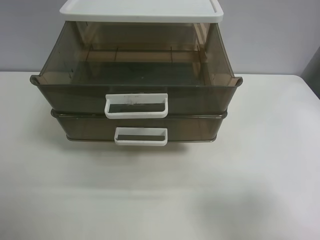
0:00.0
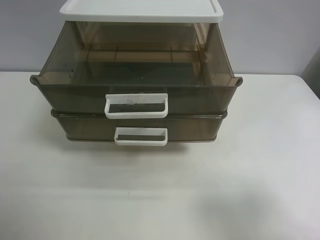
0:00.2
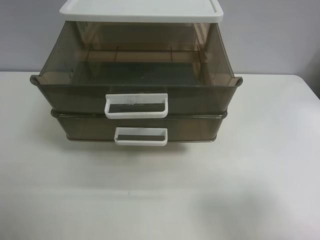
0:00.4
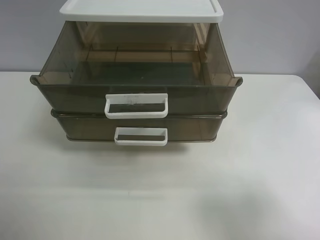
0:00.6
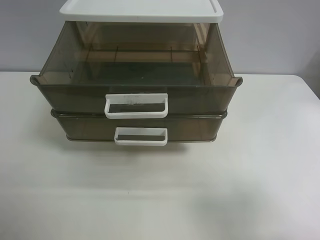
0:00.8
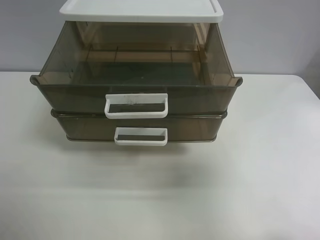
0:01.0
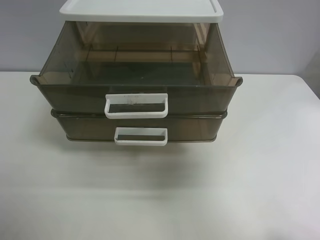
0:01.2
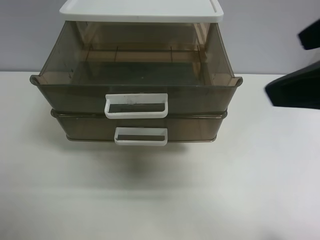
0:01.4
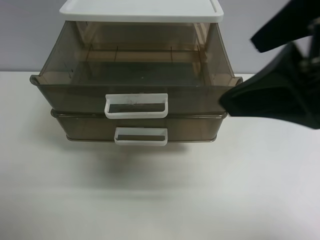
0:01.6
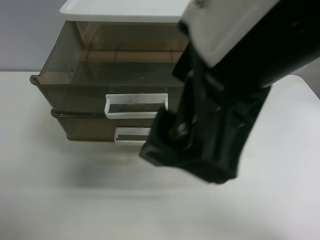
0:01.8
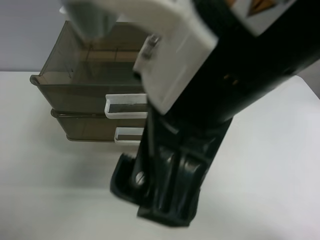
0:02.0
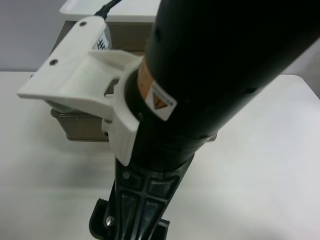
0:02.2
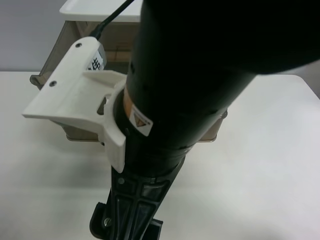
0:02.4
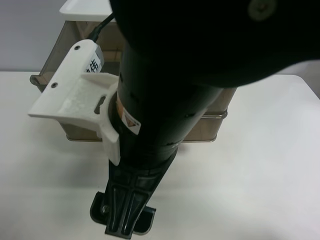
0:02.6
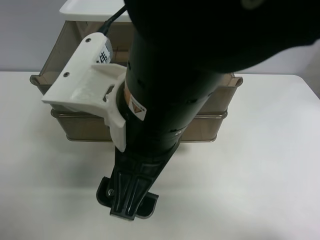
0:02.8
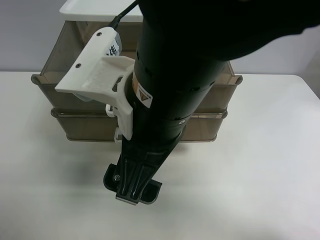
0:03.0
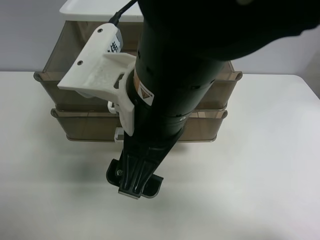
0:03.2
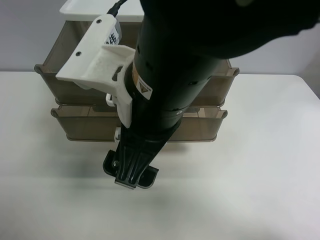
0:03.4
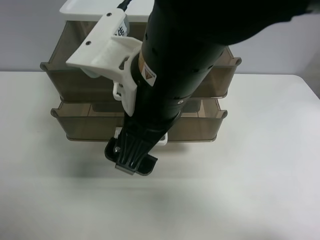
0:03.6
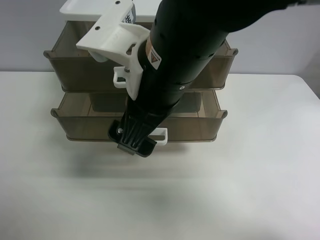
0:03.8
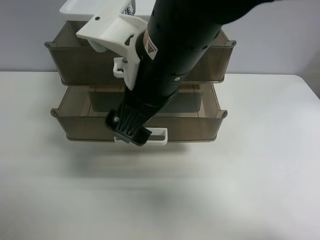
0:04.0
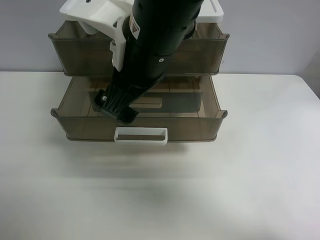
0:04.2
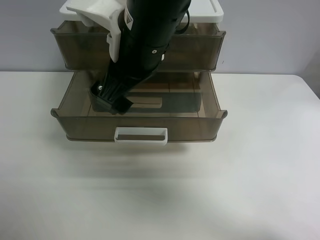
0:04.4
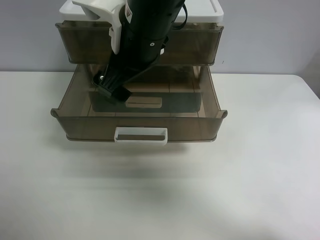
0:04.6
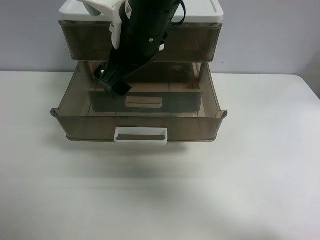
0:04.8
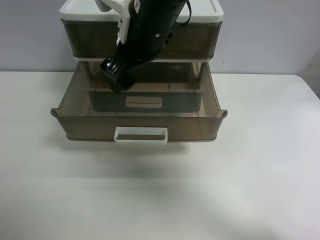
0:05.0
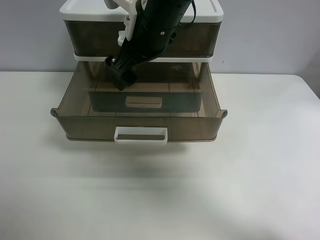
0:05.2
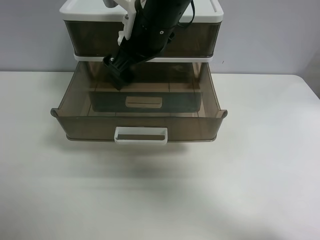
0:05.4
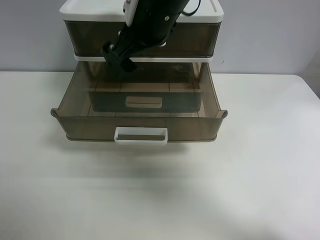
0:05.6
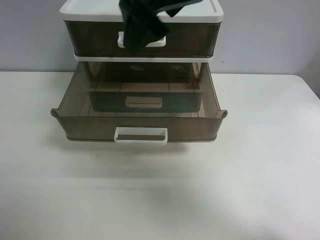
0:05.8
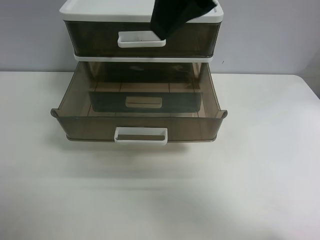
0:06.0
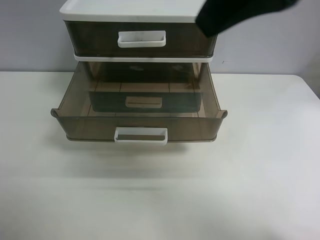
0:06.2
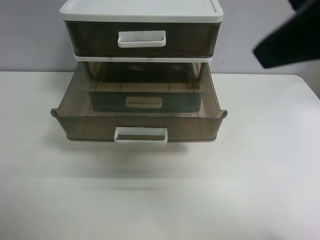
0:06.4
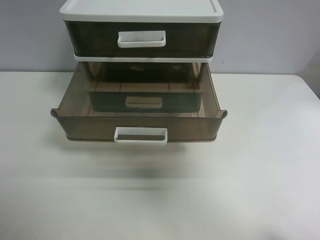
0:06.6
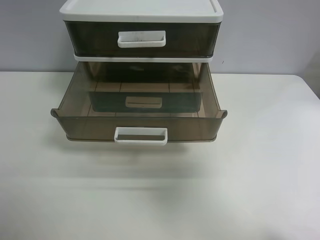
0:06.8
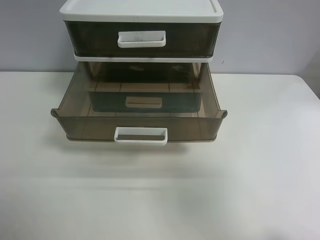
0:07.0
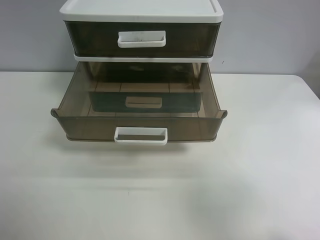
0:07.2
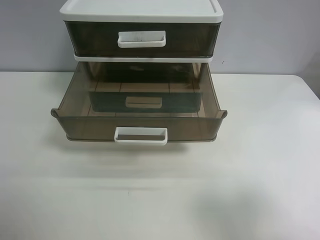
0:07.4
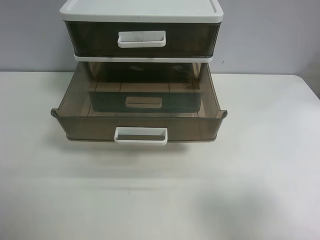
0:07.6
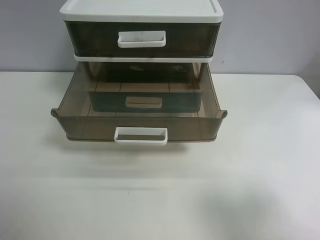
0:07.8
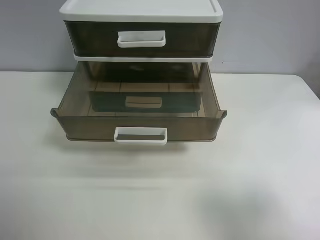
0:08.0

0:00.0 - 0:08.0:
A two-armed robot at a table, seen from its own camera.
Task of the whole recording: close the top drawer.
Step, 0:00.0 - 0:03.0: Use the right gripper to touch the topmost layer of the storage cabinet.
Step, 0:03.2 - 0:05.6: Push the top drawer closed.
0:00.0 - 0:01.6: The right gripper goes approximately 25 cm to the left, forward and upward.
0:01.6 - 0:03.2: The right gripper is displaced to the left and downward by about 15 cm.
0:03.2 - 0:04.8: The right gripper moves forward, some 15 cm.
0:04.8 - 0:06.4: The right gripper travels to the right, backward and upward by approximately 30 cm.
0:06.4 - 0:08.0: The right gripper travels downward, backward and to the right by roughly 20 cm.
